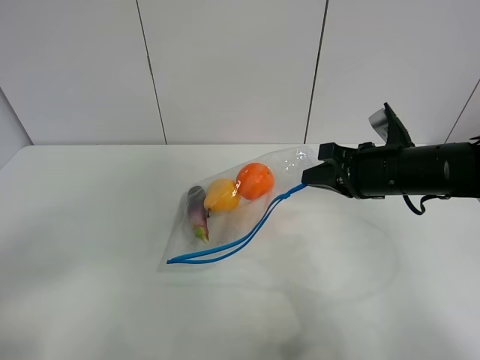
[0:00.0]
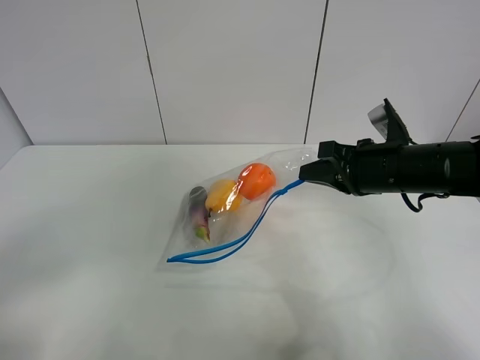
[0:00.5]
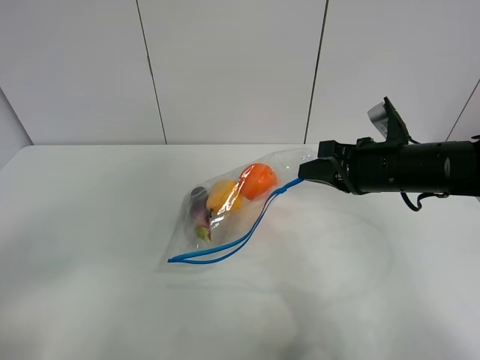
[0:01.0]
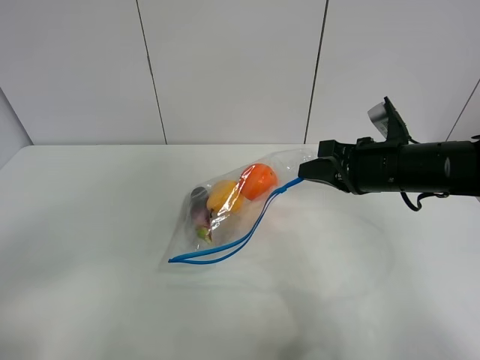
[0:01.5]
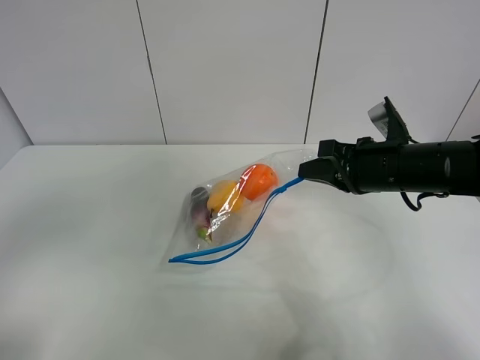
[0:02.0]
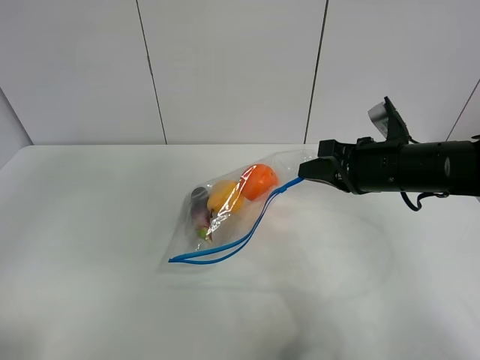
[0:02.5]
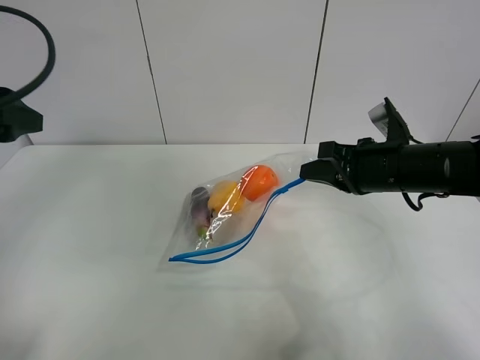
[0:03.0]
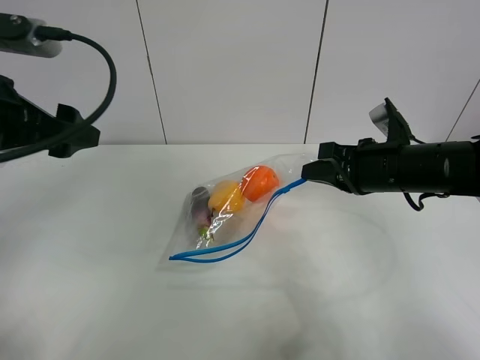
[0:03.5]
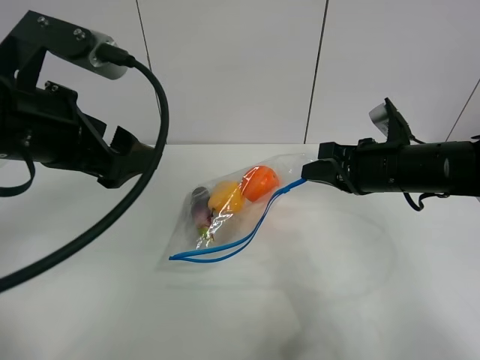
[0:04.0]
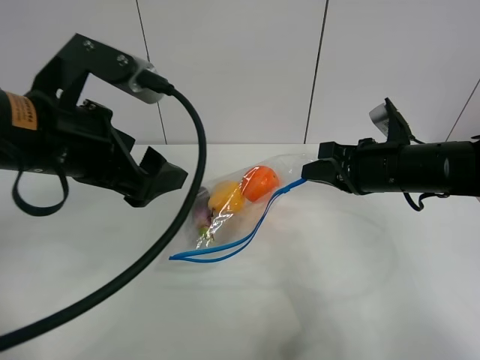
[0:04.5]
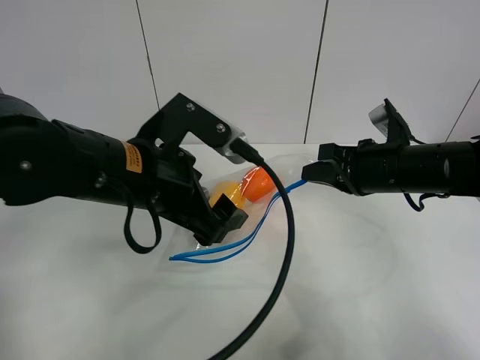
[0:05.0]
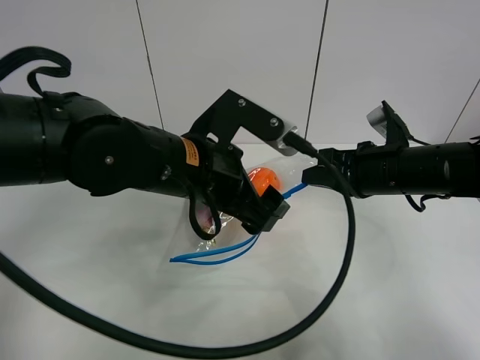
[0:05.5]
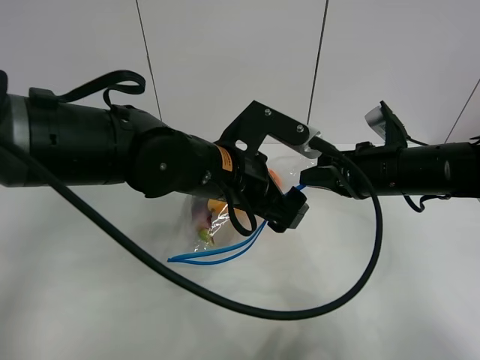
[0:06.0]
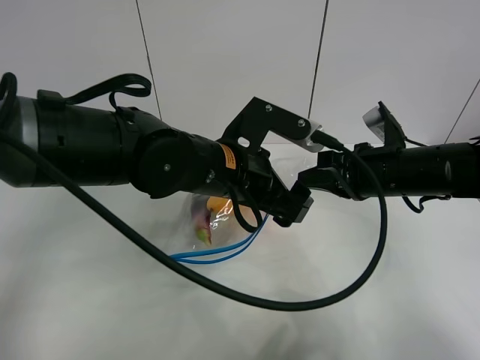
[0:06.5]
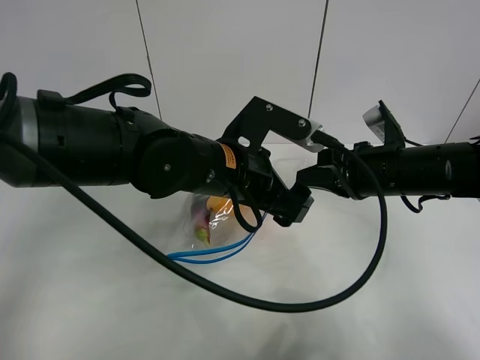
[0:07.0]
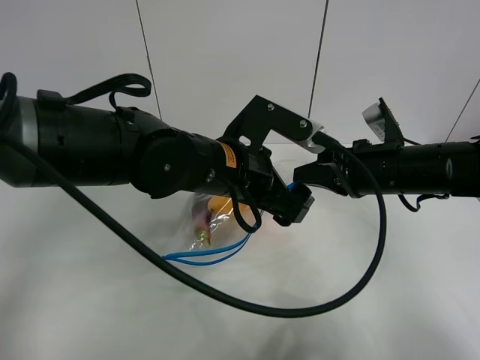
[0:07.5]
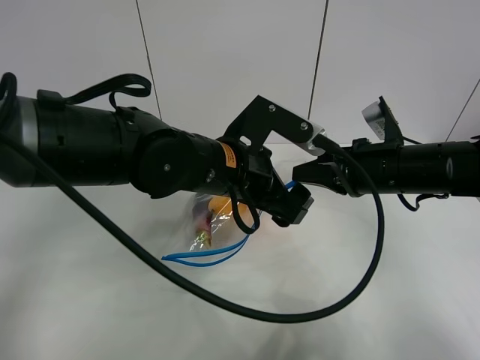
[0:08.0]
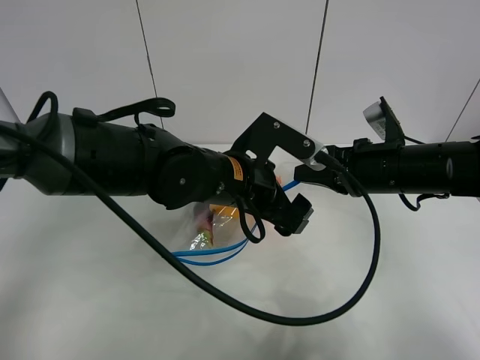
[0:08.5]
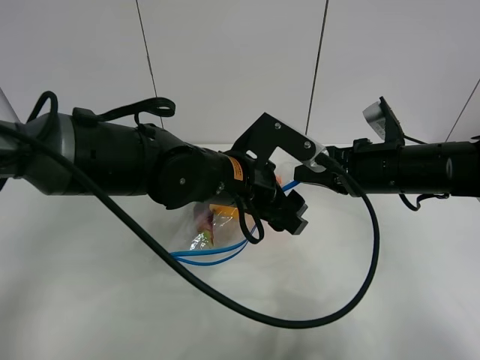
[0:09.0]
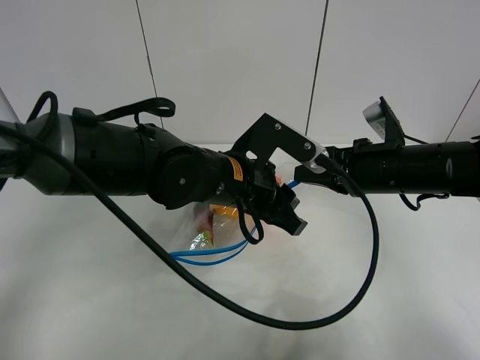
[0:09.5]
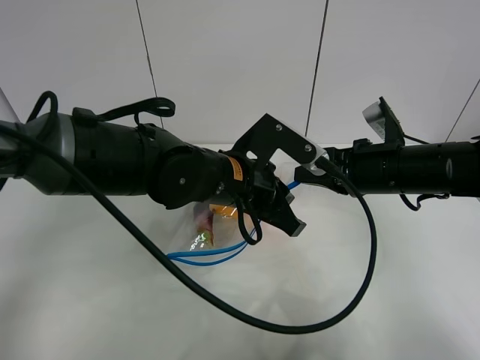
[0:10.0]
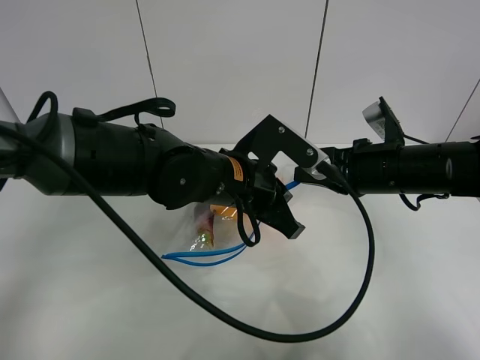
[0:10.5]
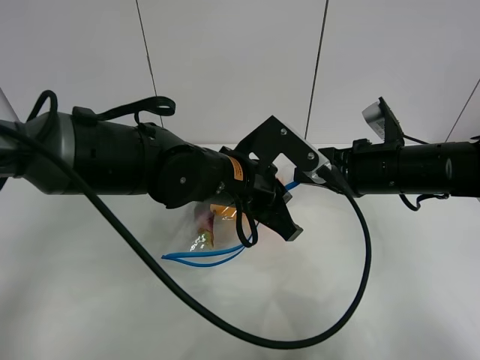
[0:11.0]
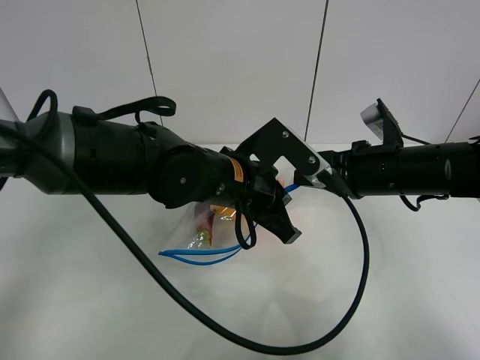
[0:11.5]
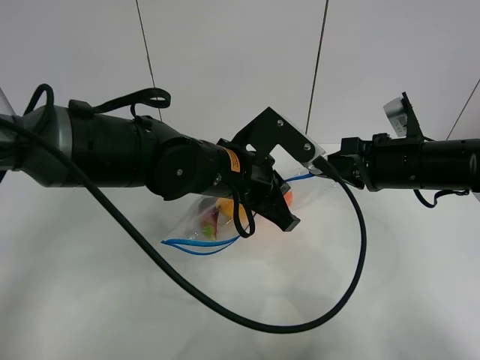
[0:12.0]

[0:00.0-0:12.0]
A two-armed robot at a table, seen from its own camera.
0:00.0 to 0:02.0: The left gripper moves upward, about 5 cm.
0:02.0 to 0:04.0: The left gripper is displaced forward and to the right by about 20 cm.
0:04.0 to 0:06.0: The left gripper heads to the right and downward, covering some 20 cm.
0:06.0 to 0:08.0: The grippers stay close to where they were, moving slightly.
0:08.0 to 0:10.0: The left gripper closes up.
0:10.0 to 0:12.0: The grippers move only a little.

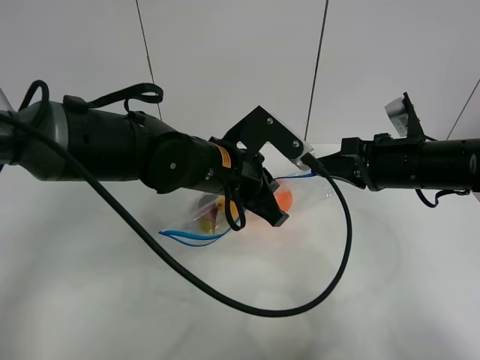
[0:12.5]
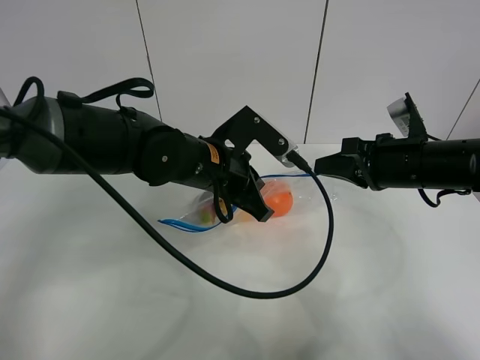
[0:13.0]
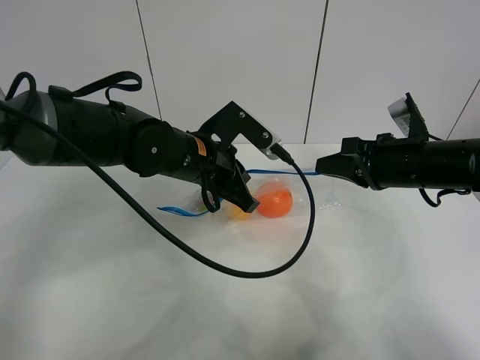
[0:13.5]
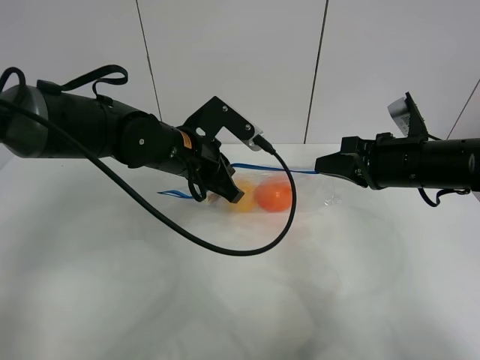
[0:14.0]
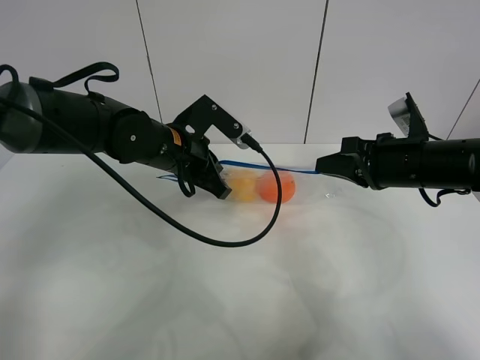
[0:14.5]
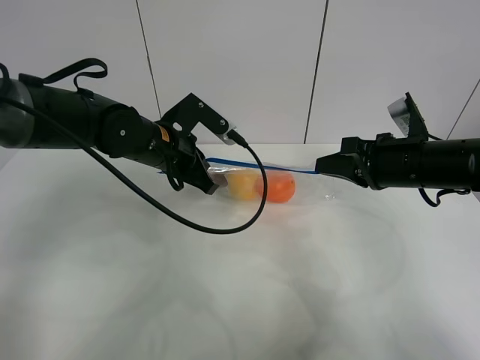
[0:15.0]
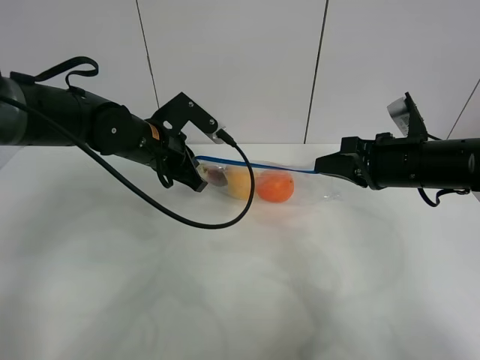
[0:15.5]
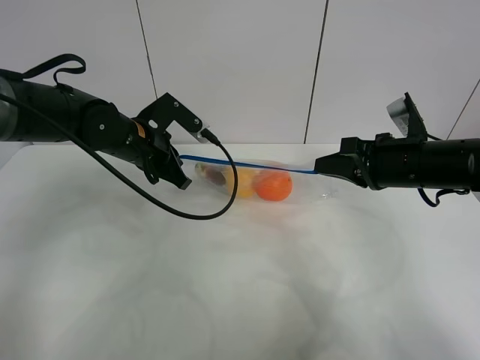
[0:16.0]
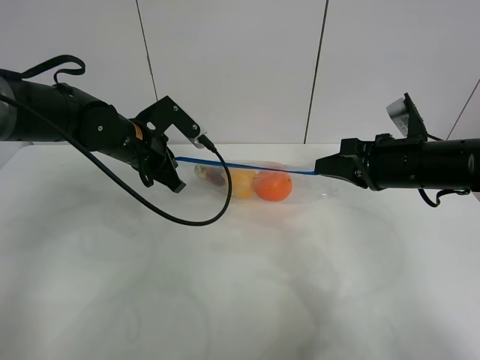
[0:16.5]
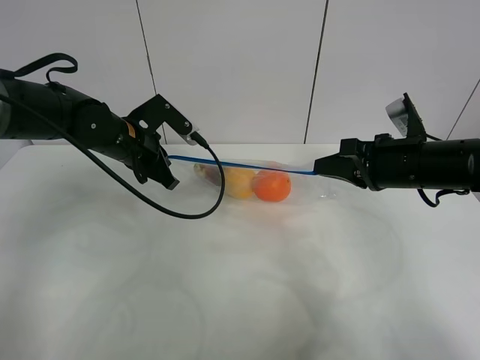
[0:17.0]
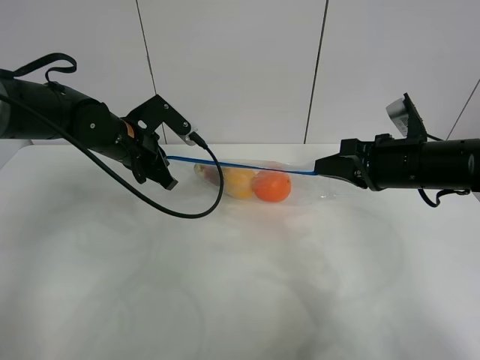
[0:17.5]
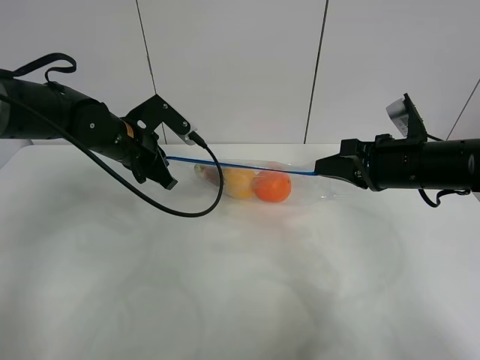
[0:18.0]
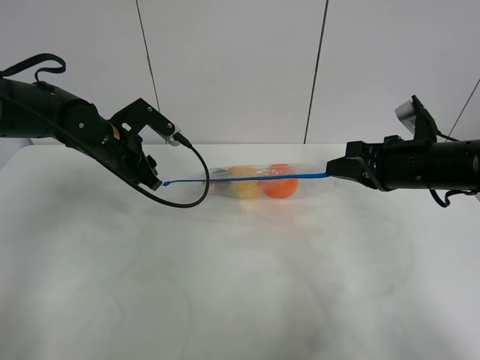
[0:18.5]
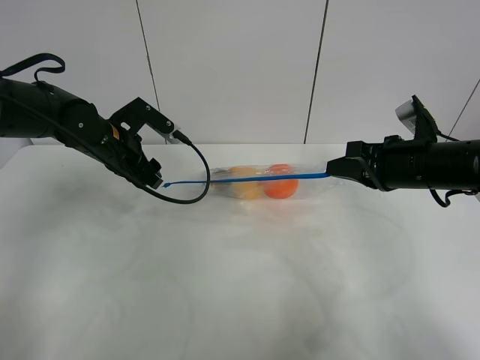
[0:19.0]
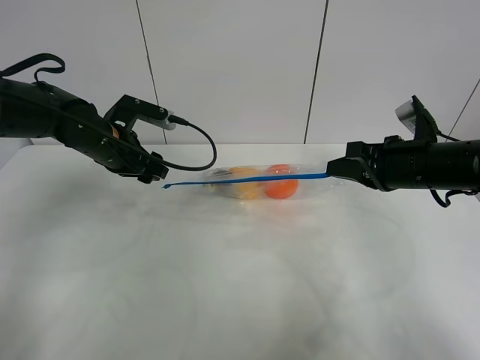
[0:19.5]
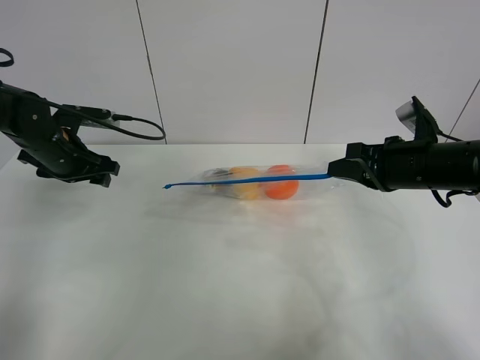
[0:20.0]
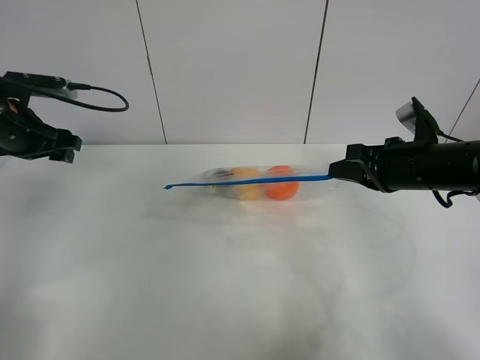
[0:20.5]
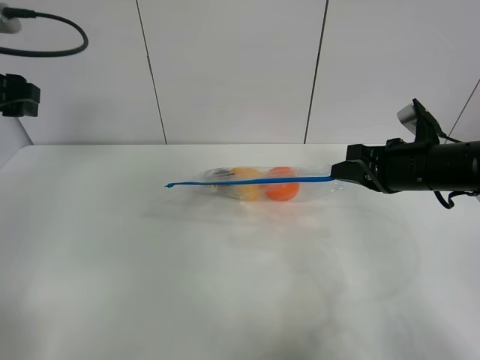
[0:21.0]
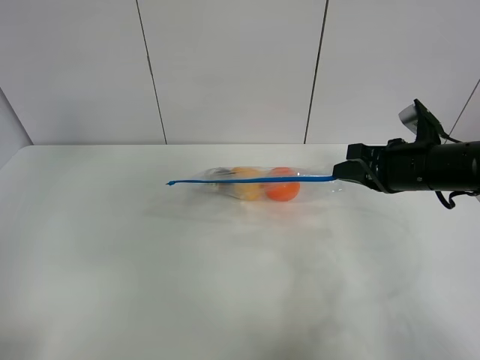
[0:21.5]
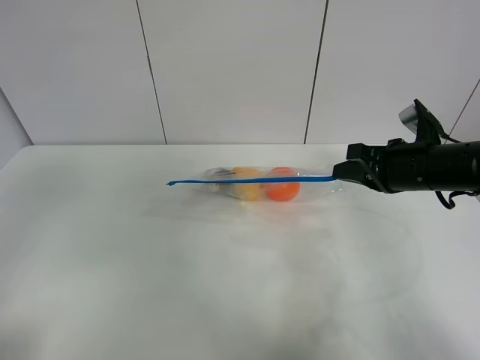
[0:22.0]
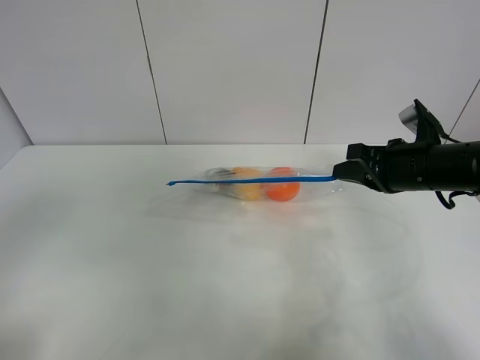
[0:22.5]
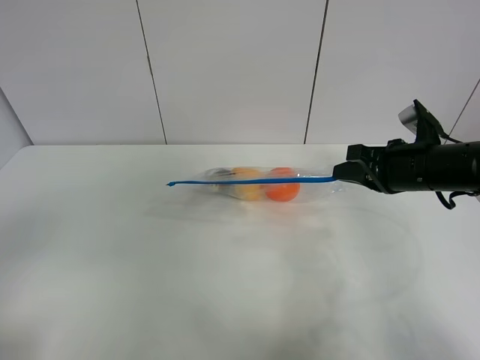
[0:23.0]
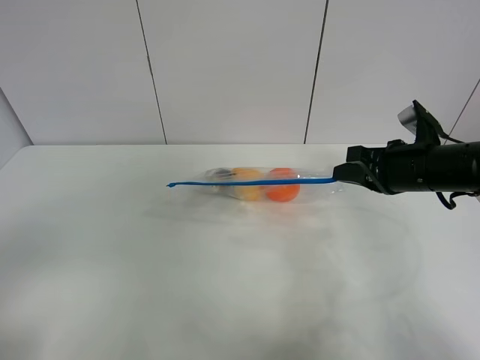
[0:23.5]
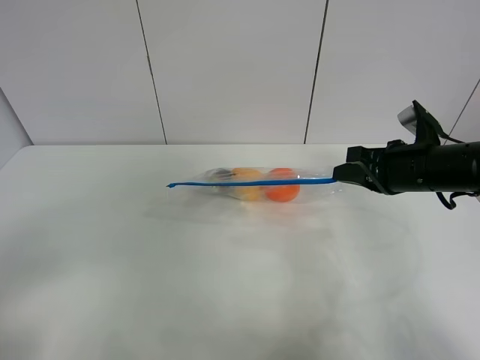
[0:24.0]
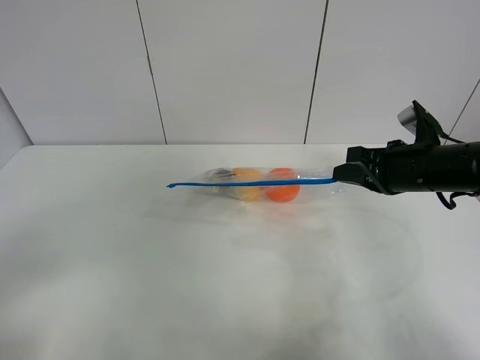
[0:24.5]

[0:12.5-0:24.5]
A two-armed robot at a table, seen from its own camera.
Step, 0:12.5 to 0:18.5: Pull the fruit bag with left gripper.
0:12.5 to 0:14.5: The left gripper is displaced to the left by about 5 cm.
0:14.5 to 0:16.5: The left gripper moves to the left, some 5 cm.
0:16.5 to 0:18.5: The left gripper opens up.
0:18.5 to 0:20.5: The left gripper travels to the left and upward by about 15 cm.
0:20.5 to 0:22.5: The left gripper heads backward, covering approximately 35 cm.
0:22.5 to 0:24.5: The left gripper travels downward by approximately 5 cm.

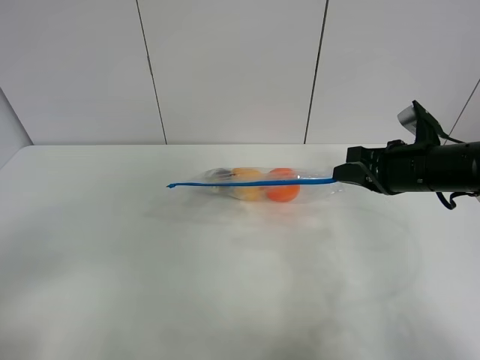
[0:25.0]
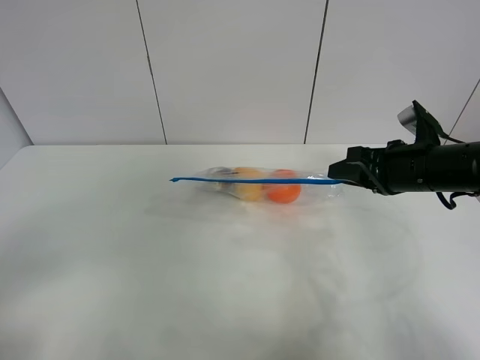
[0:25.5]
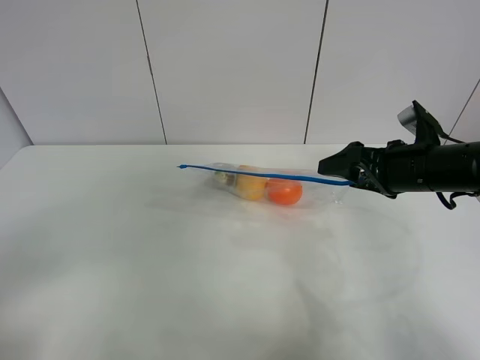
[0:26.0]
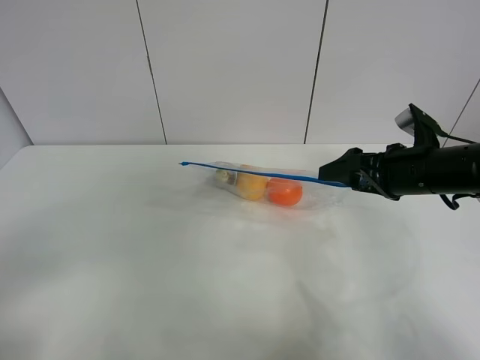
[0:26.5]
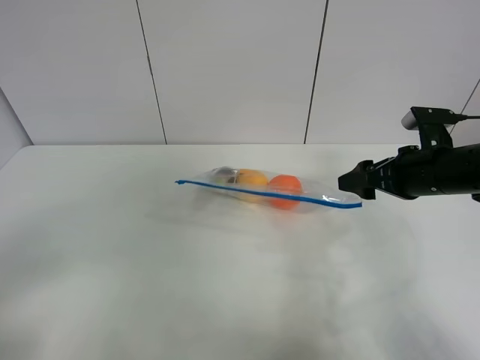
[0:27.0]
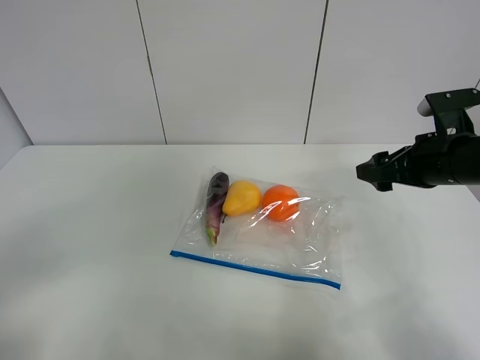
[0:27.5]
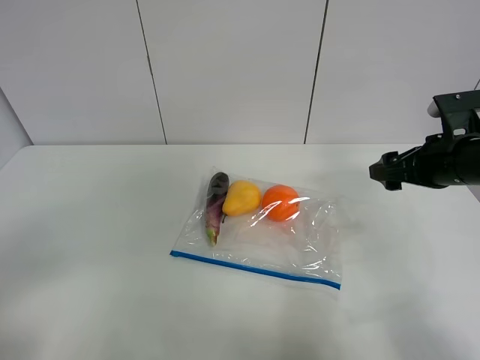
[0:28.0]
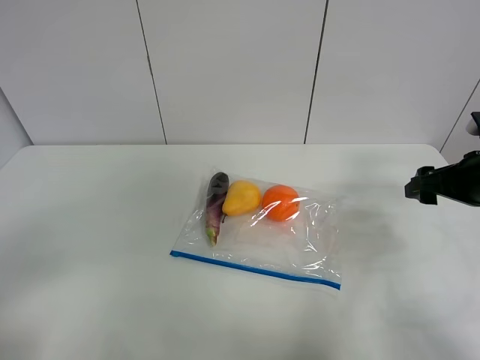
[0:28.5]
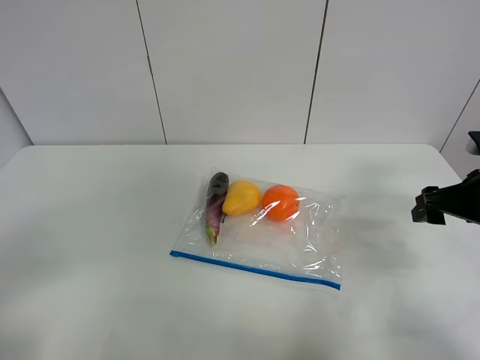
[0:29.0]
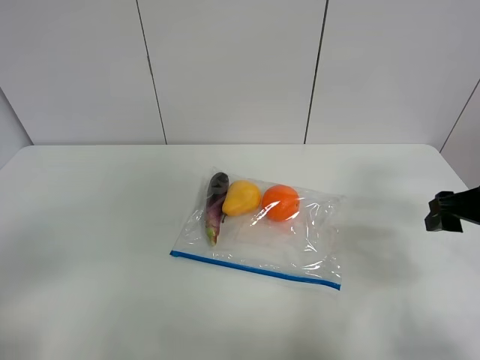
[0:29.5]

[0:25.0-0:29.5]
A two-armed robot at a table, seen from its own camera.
Step, 0:25.0 to 0:27.0: Place the fruit bag with right gripper.
0:25.0 to 0:27.0: The right gripper opens up.
0:27.0 to 0:29.5: The right gripper heads to the right and backward, covering some 10 cm.
